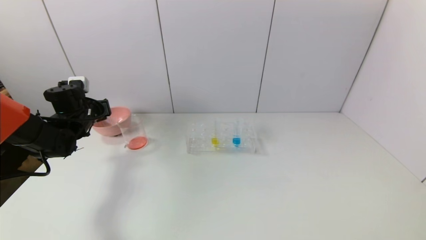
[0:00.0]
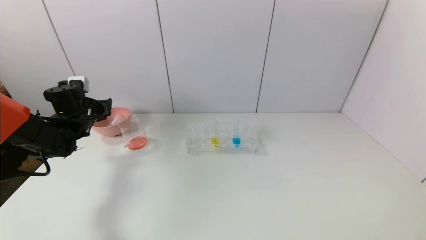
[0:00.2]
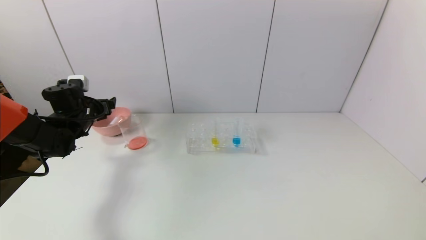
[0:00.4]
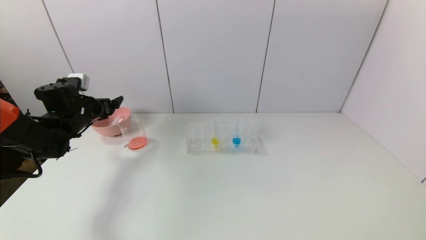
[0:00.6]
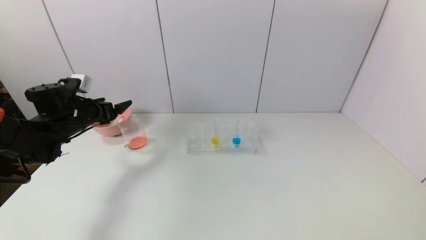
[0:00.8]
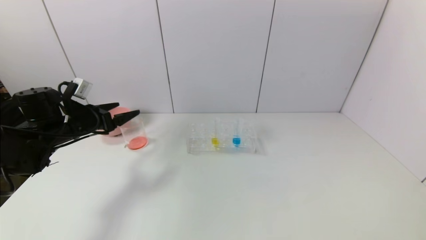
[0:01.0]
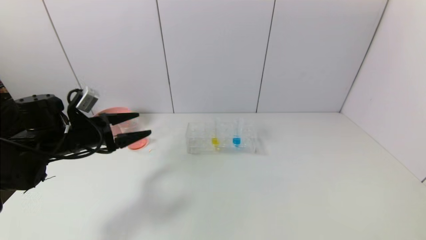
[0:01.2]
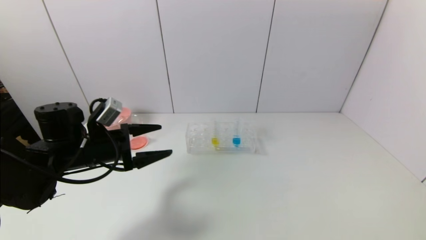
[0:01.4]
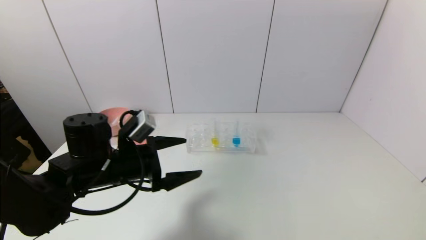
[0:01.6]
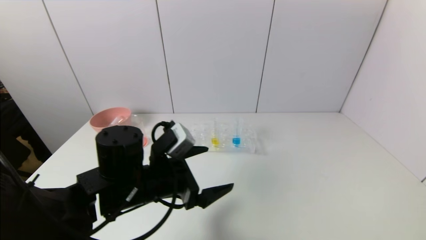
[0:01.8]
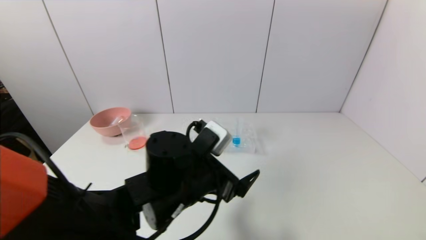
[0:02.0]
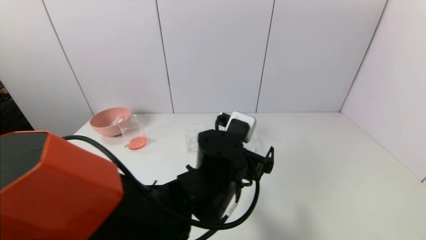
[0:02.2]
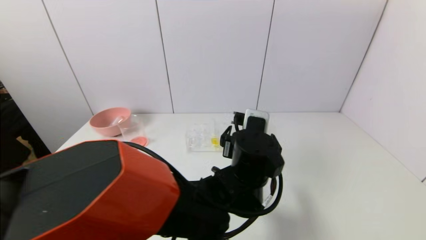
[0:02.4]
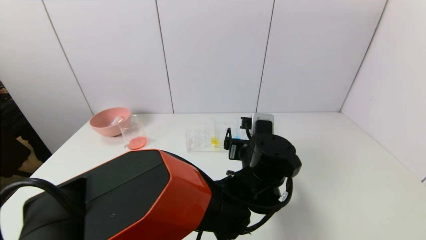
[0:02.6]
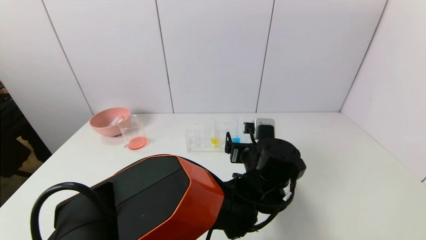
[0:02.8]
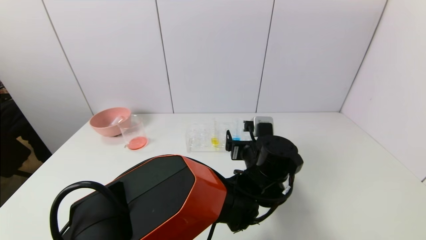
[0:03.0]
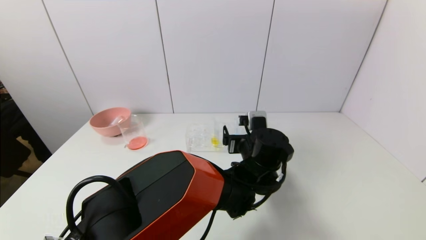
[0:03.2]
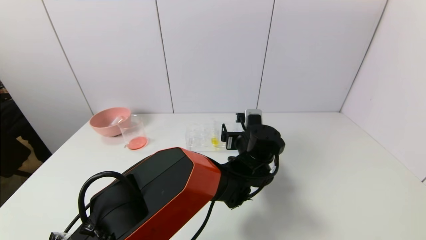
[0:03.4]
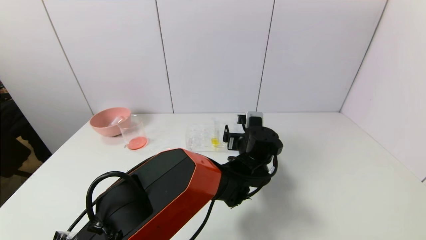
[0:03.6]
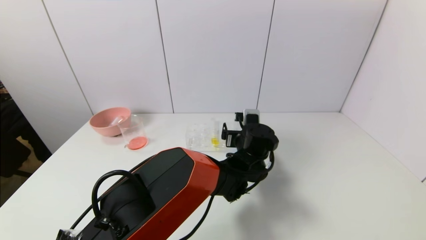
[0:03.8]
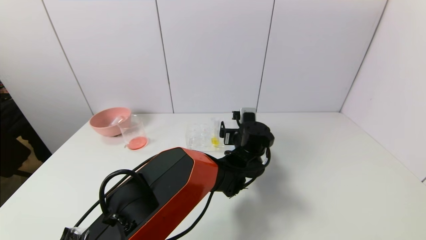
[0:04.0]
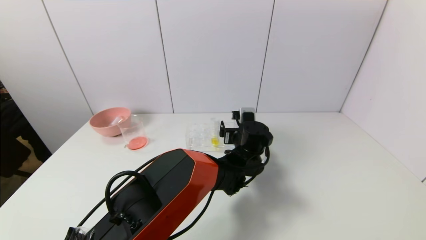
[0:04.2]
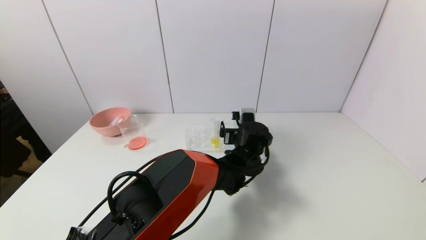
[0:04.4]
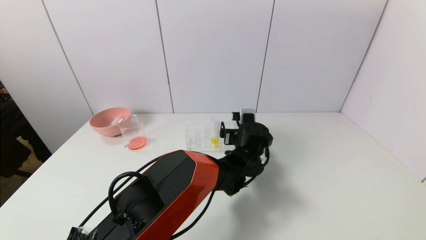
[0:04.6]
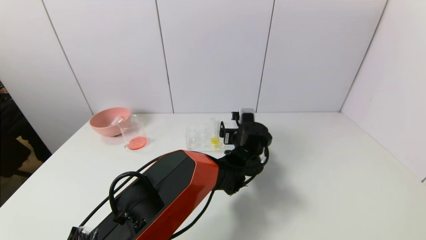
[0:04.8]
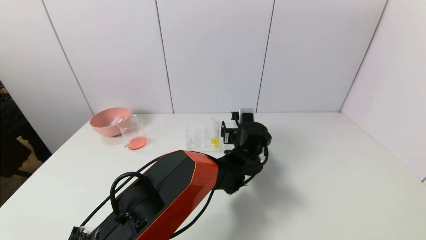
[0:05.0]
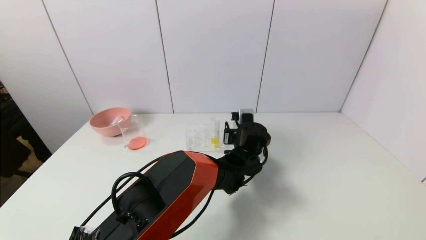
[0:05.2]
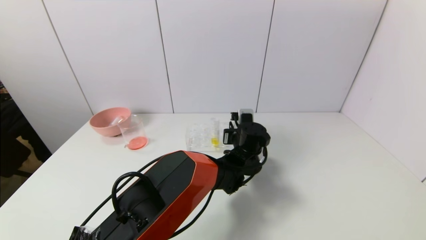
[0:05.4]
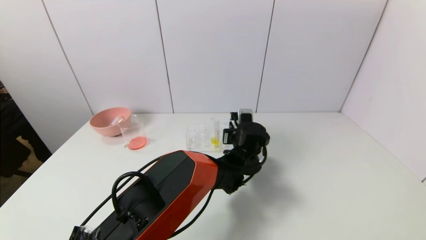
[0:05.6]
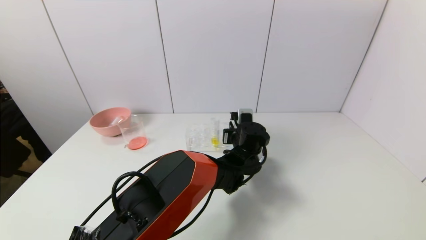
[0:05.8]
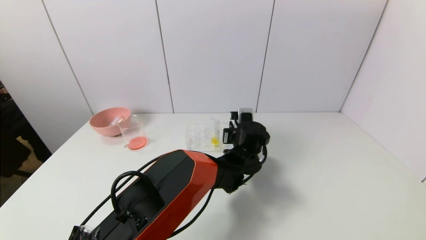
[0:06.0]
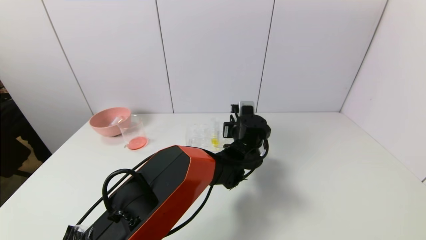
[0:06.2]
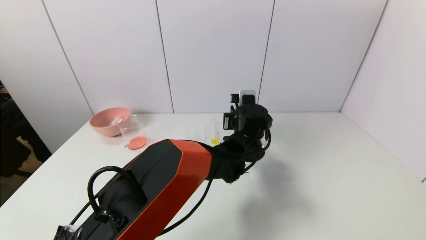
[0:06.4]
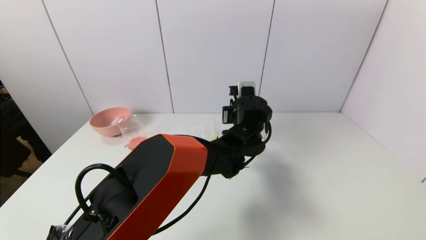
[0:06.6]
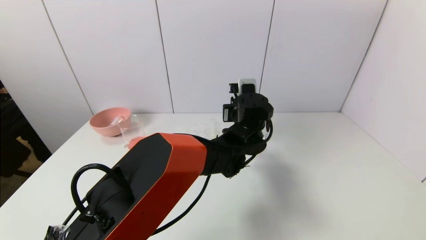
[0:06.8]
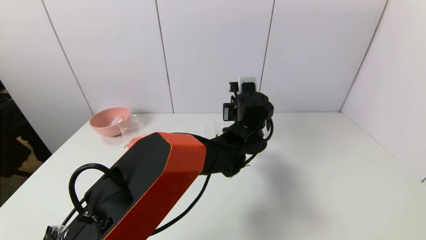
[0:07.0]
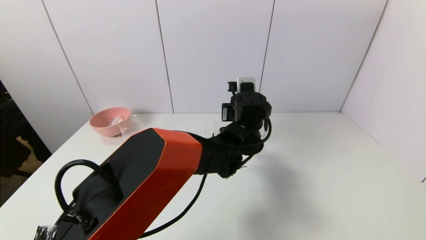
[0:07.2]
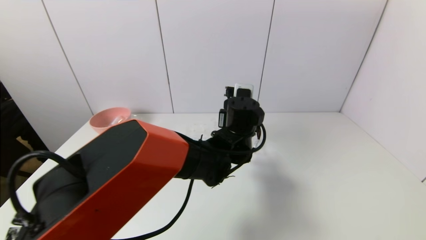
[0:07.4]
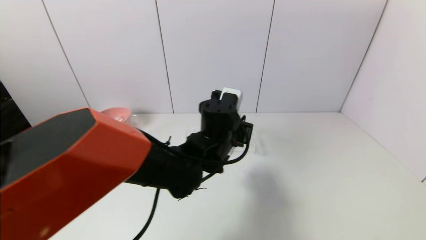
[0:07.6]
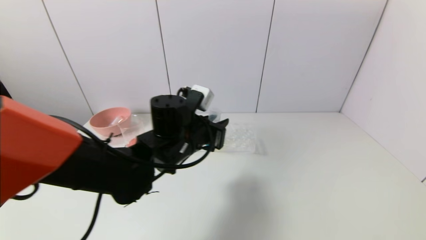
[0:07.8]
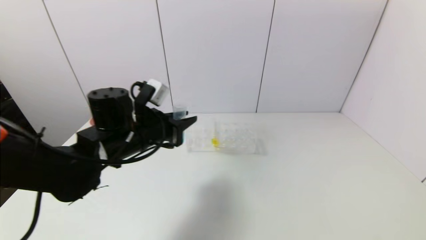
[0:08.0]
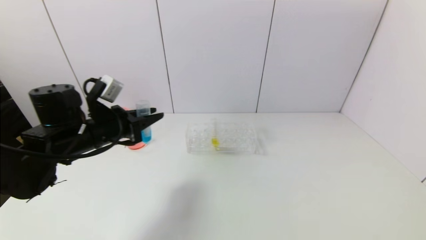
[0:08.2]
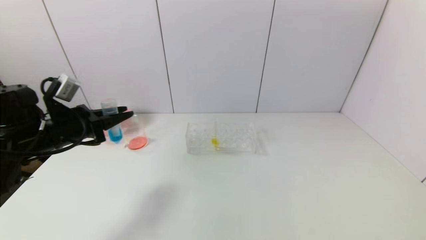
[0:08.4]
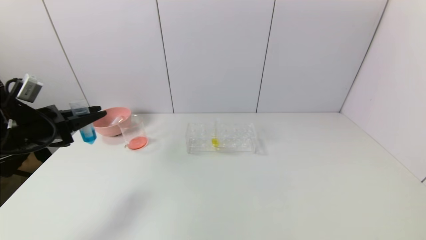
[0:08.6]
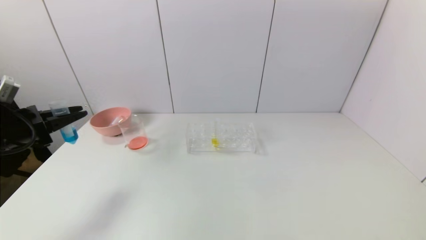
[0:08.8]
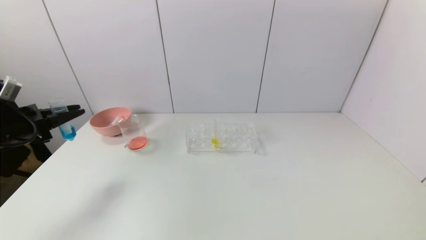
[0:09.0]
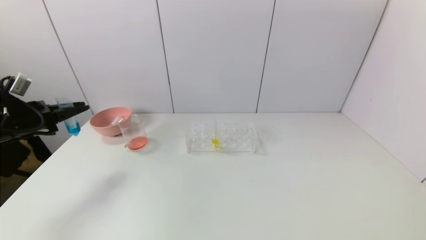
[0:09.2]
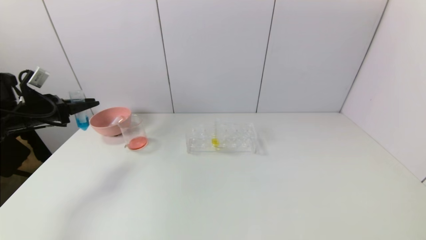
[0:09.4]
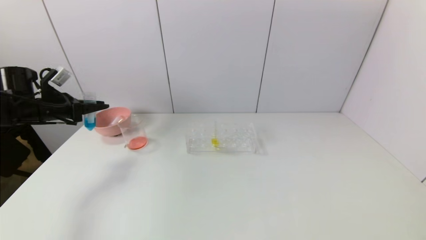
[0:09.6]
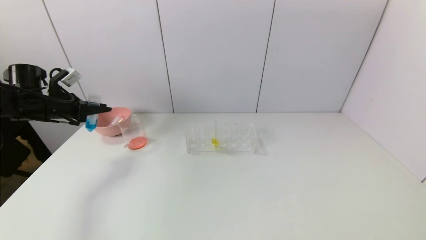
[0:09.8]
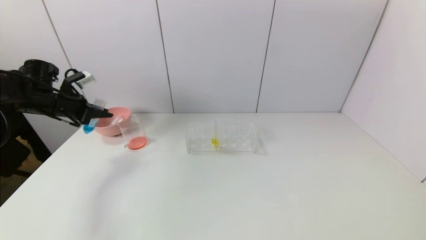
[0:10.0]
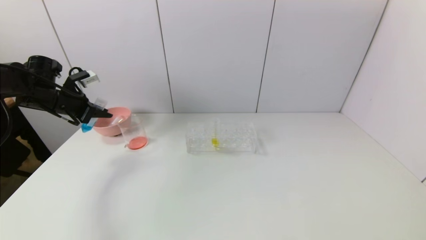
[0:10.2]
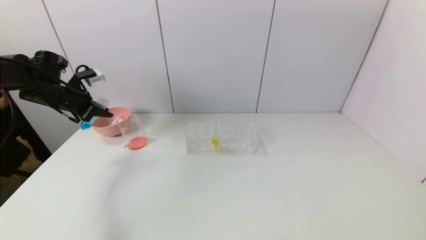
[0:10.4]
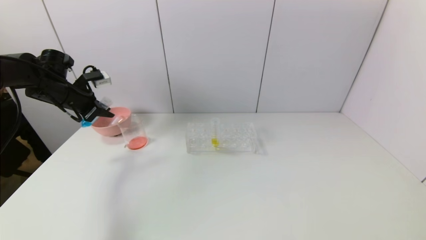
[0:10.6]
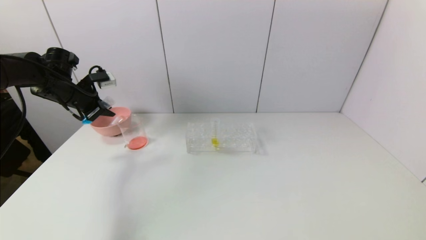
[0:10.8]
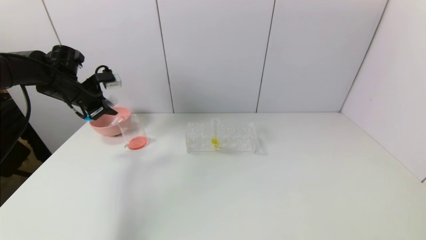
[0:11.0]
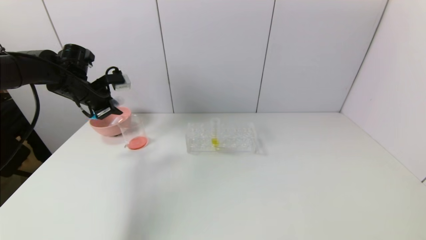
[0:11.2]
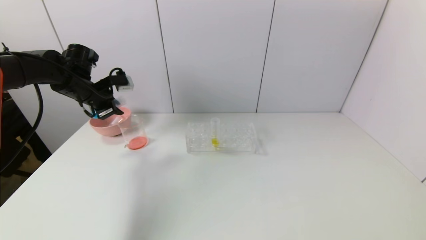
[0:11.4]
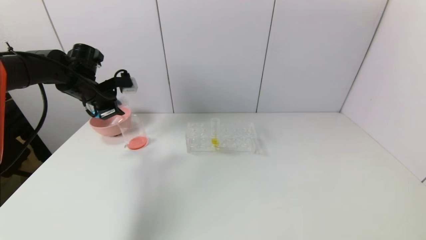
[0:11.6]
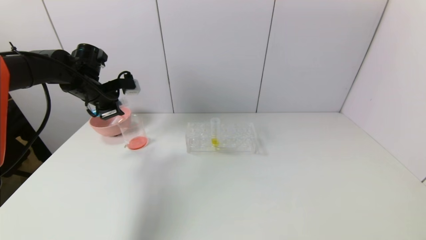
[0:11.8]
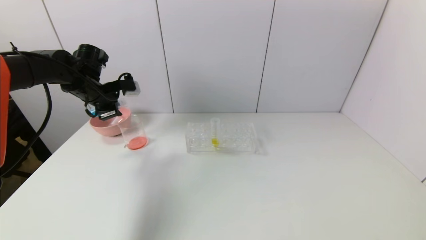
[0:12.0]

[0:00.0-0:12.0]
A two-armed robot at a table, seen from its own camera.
Task of the whole recording: pick up the test tube with red pigment and the test tube with blue pigment by grippers and pour them into the container.
Step, 0:00.2 to 0:05.4: Grasp the blue reagent with the left gripper.
0:00.0 to 0:01.6: The left gripper goes some 25 cm to the right and backward, and opens up.
0:01.6 to 0:03.0: The left gripper shifts some 30 cm to the right.
0:03.0 to 0:04.4: The left gripper goes approximately 10 cm forward.
0:04.4 to 0:06.0: The left gripper closes its fingers.
0:06.0 to 0:07.6: The left gripper shifts about 15 cm upward, to the left and backward.
0:07.6 to 0:09.0: The left gripper travels to the left by about 40 cm.
0:09.0 to 0:10.4: The left gripper goes some 10 cm forward.
0:10.4 to 0:12.0: The left gripper heads to the right, covering roughly 10 cm.

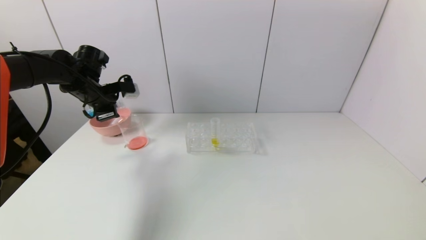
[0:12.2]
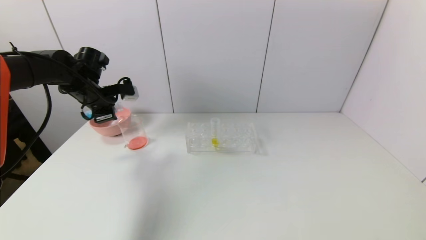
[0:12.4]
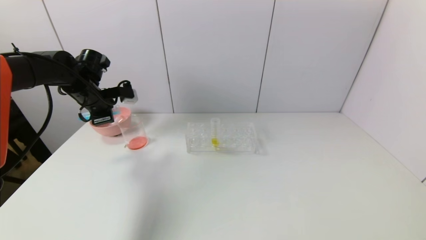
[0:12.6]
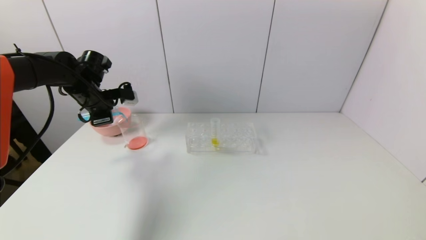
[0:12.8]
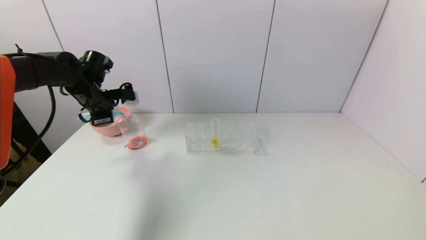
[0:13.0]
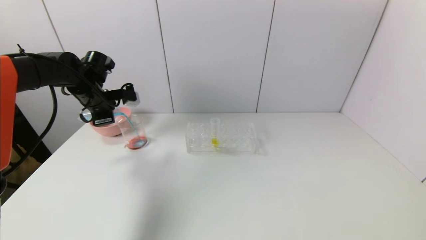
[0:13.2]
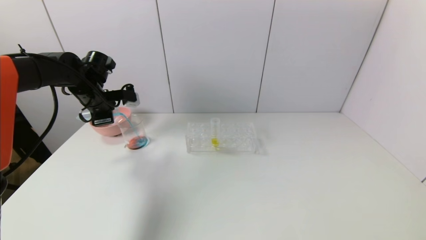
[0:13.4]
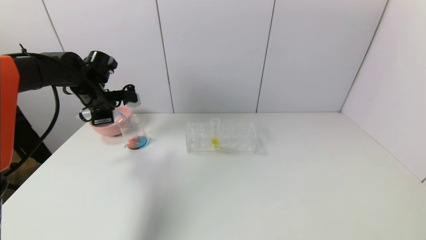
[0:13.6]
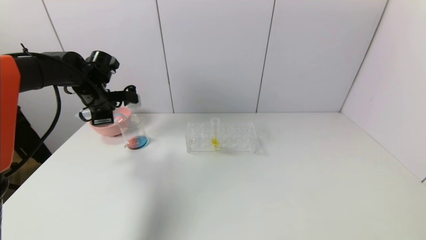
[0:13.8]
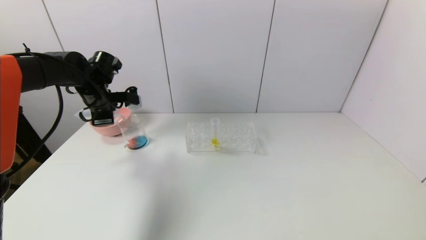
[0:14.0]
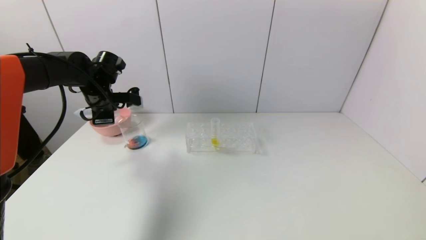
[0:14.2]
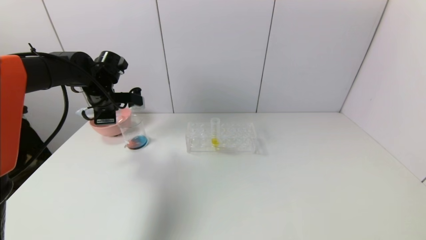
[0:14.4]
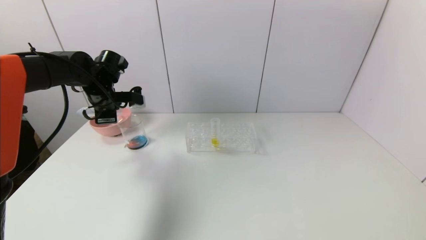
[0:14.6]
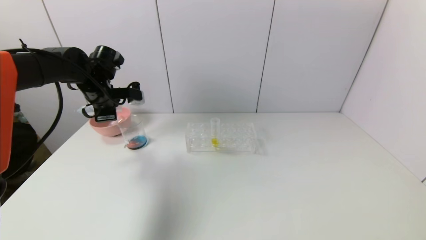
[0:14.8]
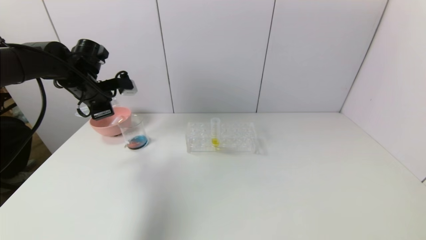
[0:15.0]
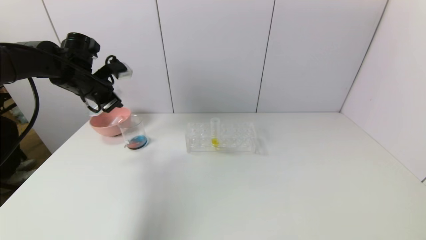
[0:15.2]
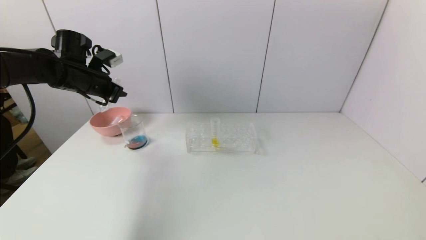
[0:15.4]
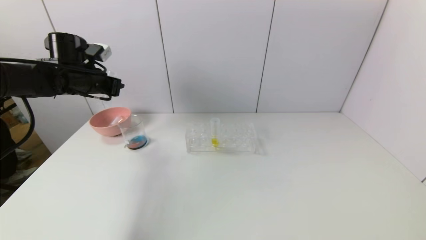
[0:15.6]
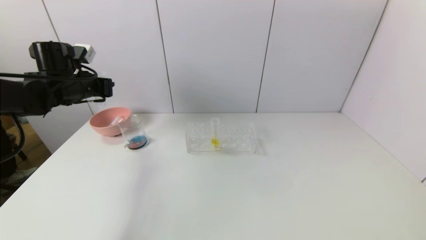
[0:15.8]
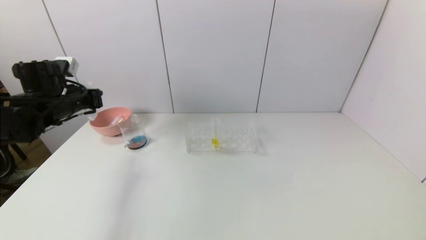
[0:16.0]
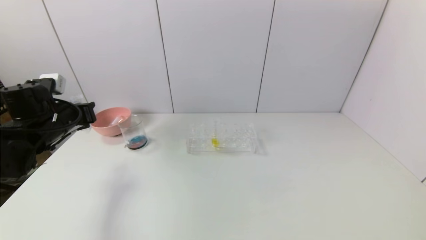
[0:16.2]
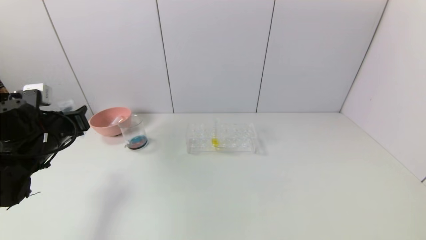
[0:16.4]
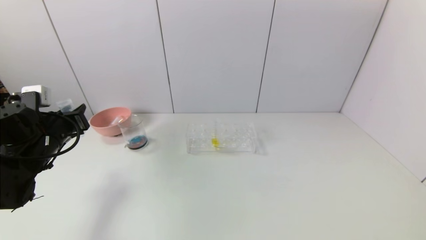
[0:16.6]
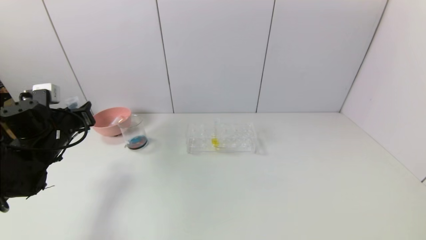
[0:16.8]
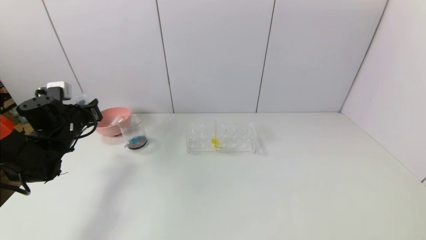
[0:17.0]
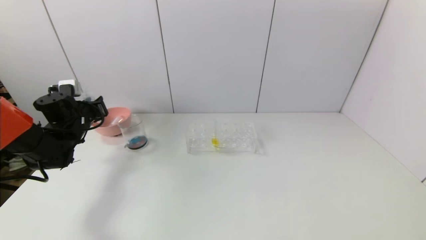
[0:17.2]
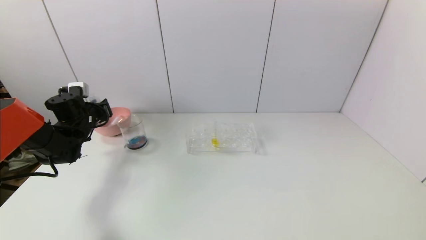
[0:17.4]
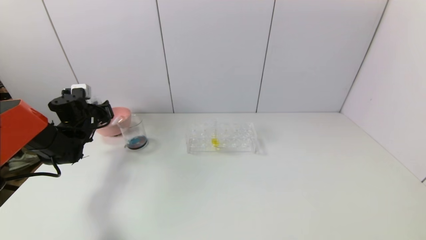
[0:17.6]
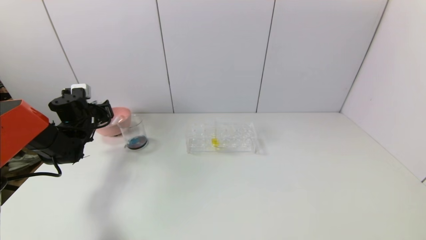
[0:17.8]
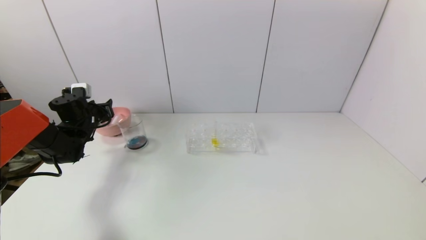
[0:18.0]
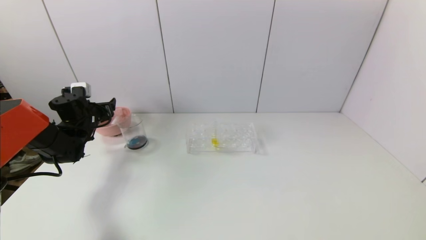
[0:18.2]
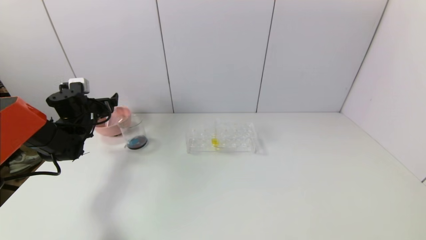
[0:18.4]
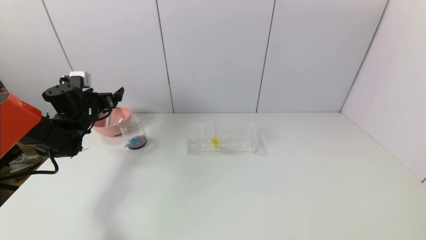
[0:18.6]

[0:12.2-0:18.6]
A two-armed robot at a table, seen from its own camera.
Task of the whole recording: pick up the test tube with red pigment and the test tube with blue pigment by grippers and pour them into the container.
Step, 0:12.2 to 0:14.6: Pour the blue reagent into the graduated cylinder with the left gripper.
Step, 0:14.8 to 0:18.0: Place the test tube into the bowl with the left gripper.
0:12.2 to 0:13.8: The grippers move only a little.
0:15.4 to 0:17.0: The left gripper heads downward, covering about 10 cm.
0:17.0 to 0:18.6: The left gripper heads forward, covering approximately 5 cm, and opens up.
